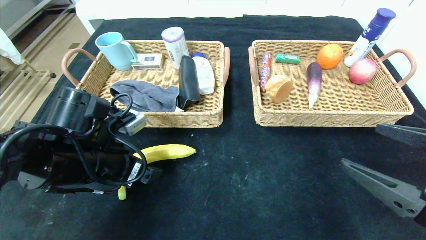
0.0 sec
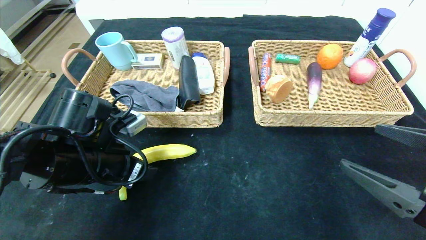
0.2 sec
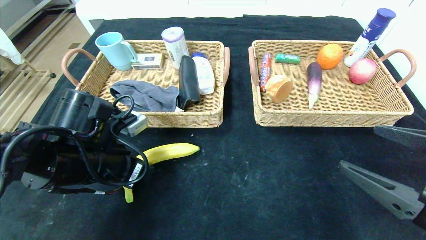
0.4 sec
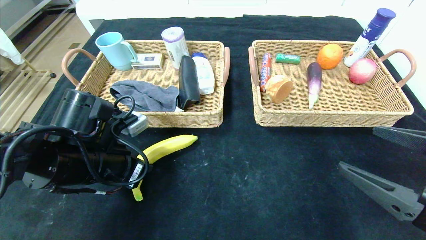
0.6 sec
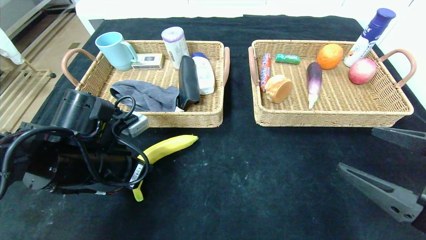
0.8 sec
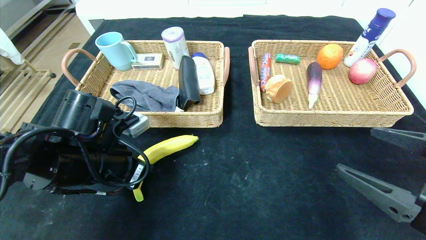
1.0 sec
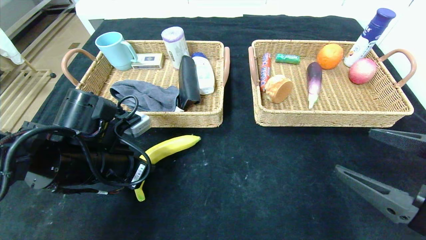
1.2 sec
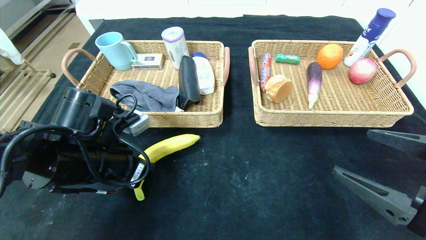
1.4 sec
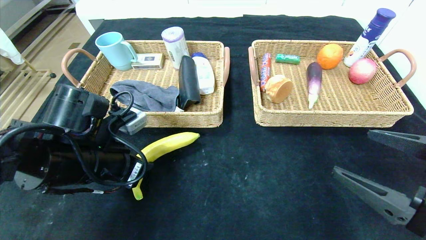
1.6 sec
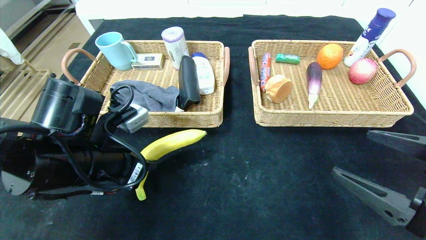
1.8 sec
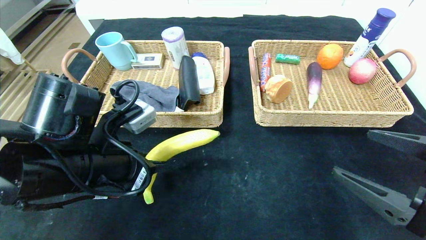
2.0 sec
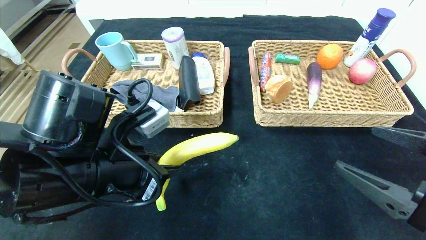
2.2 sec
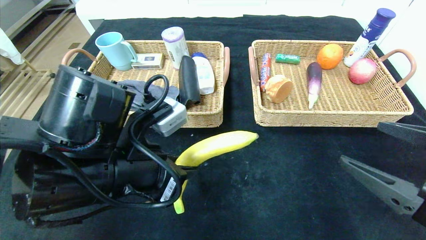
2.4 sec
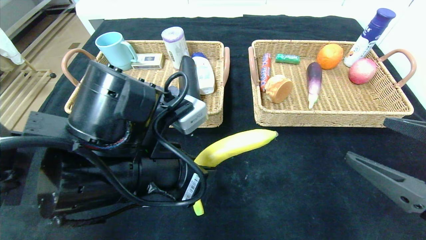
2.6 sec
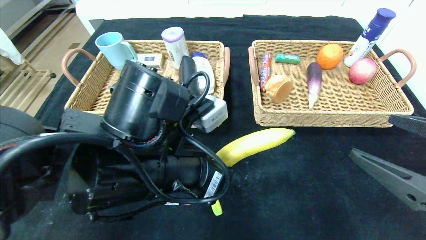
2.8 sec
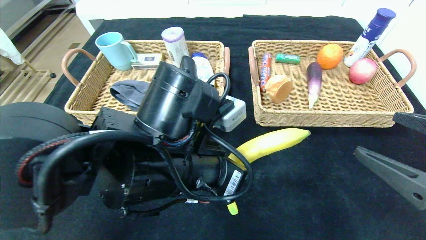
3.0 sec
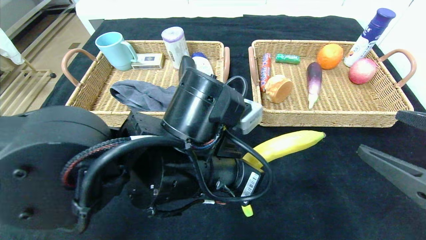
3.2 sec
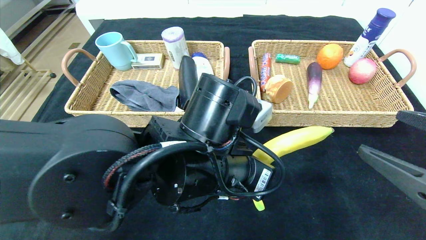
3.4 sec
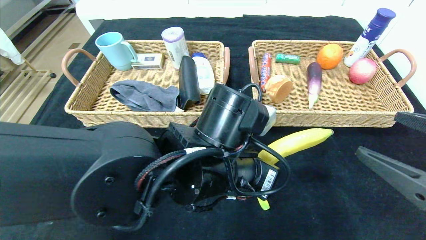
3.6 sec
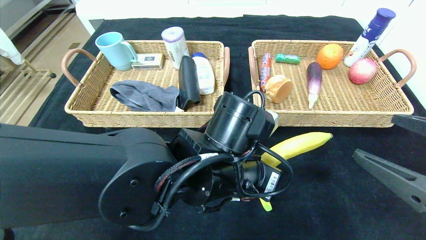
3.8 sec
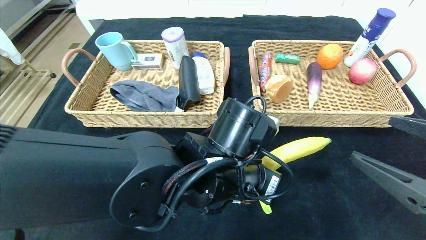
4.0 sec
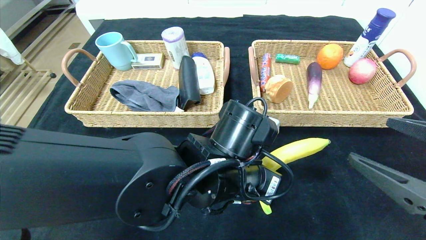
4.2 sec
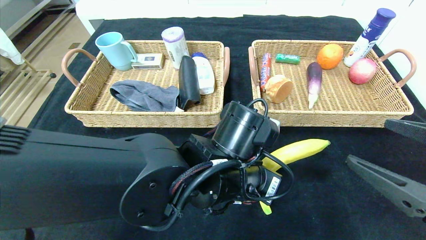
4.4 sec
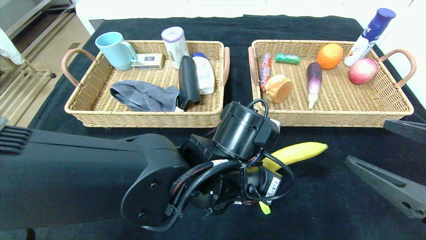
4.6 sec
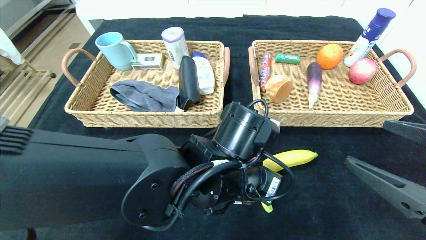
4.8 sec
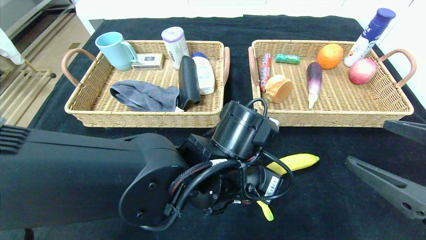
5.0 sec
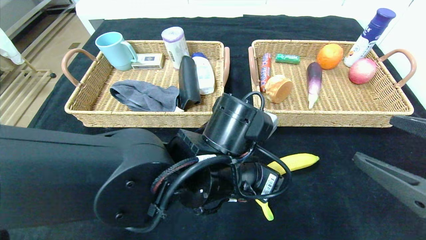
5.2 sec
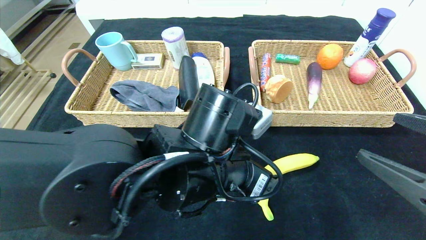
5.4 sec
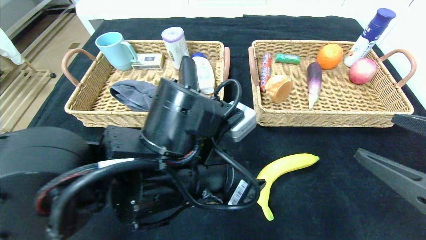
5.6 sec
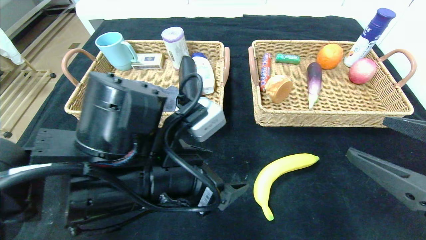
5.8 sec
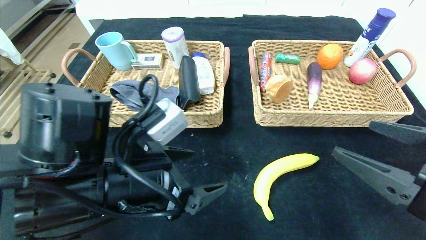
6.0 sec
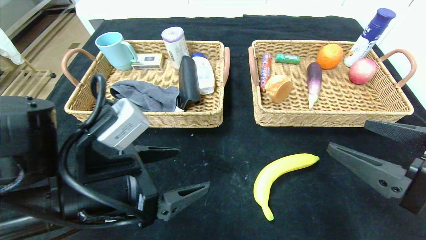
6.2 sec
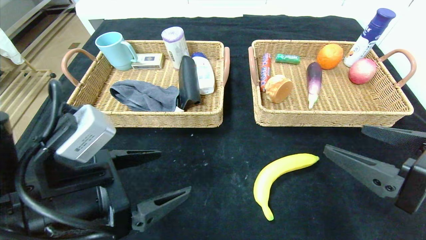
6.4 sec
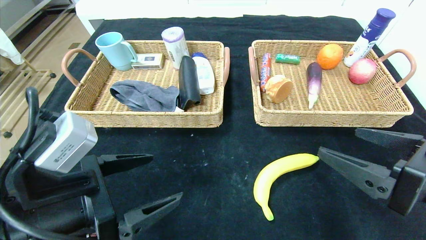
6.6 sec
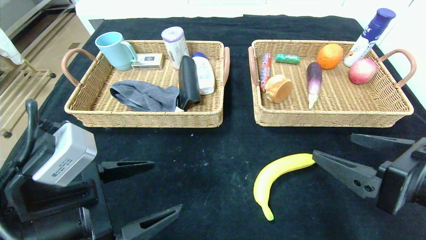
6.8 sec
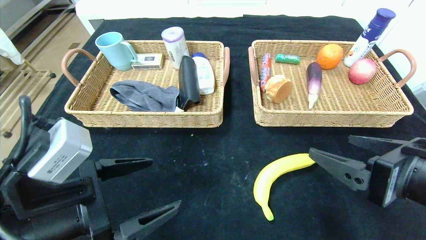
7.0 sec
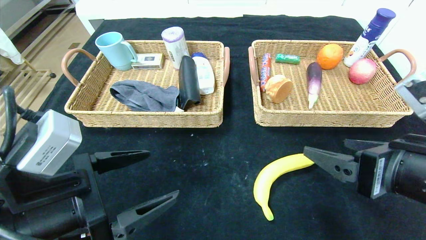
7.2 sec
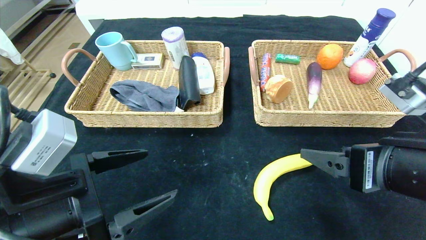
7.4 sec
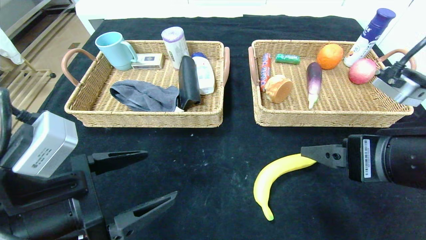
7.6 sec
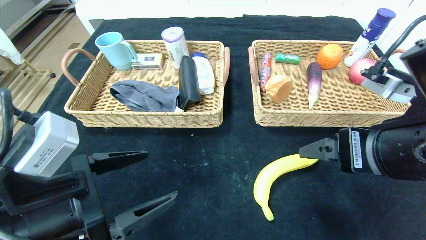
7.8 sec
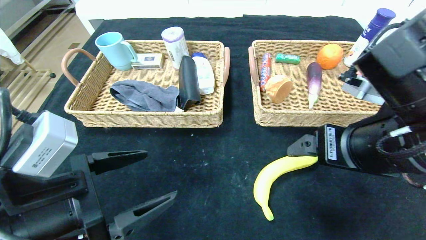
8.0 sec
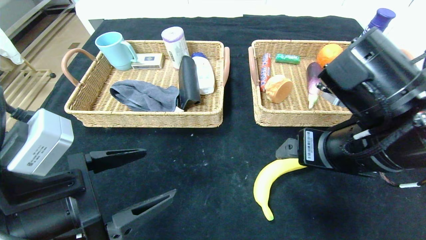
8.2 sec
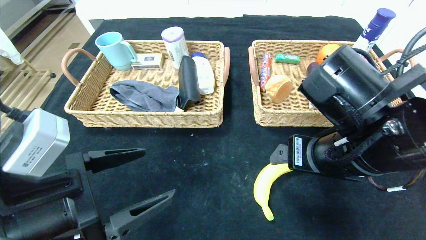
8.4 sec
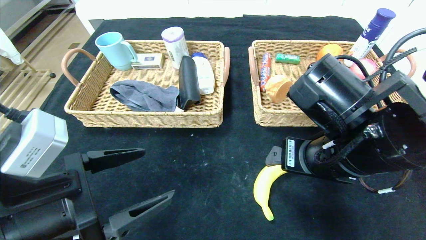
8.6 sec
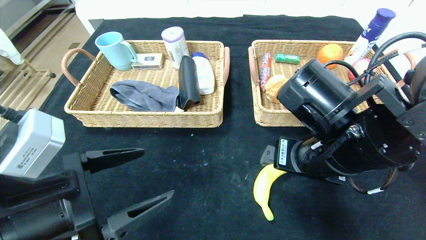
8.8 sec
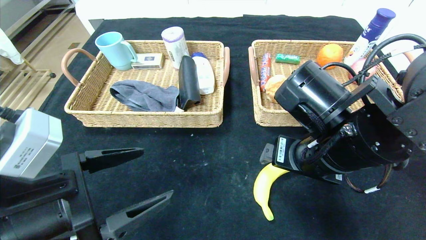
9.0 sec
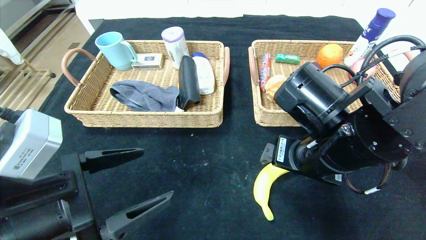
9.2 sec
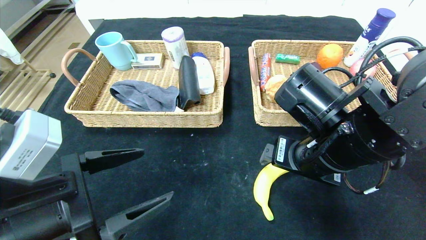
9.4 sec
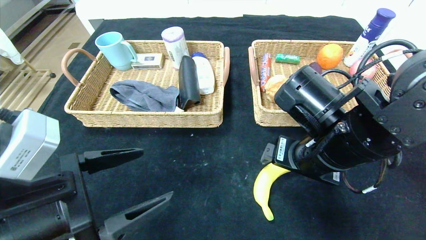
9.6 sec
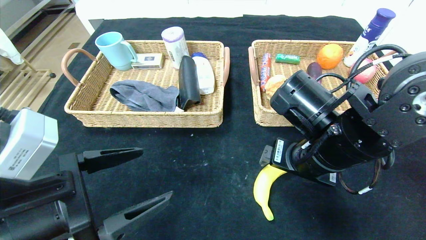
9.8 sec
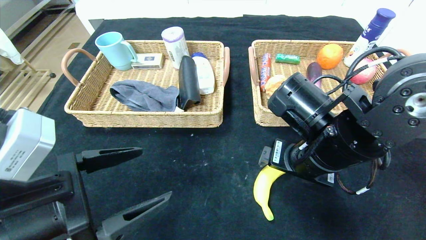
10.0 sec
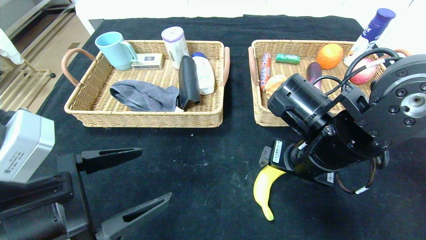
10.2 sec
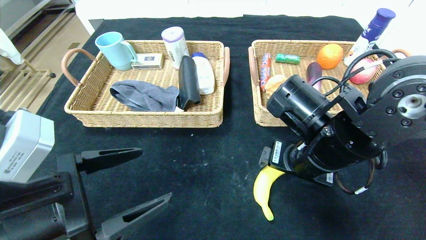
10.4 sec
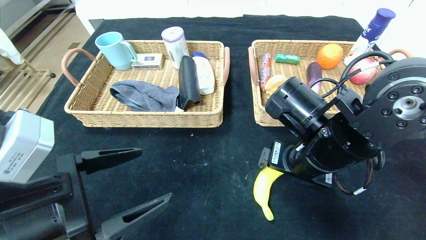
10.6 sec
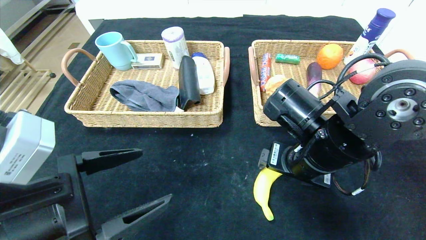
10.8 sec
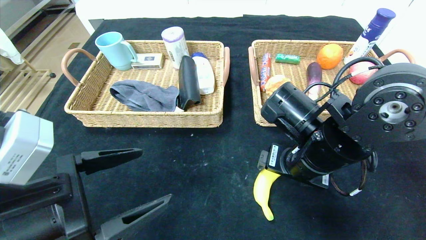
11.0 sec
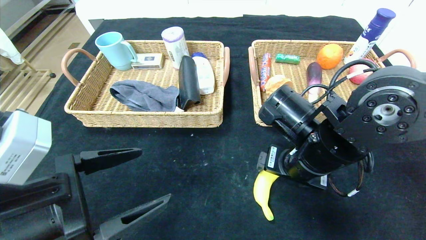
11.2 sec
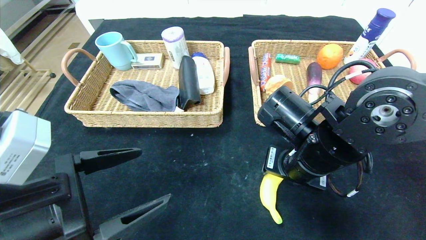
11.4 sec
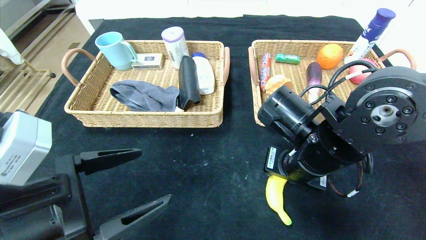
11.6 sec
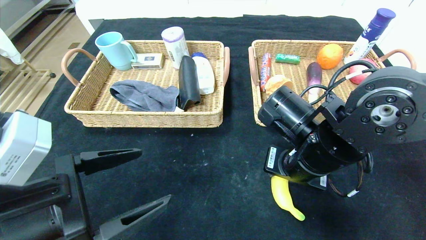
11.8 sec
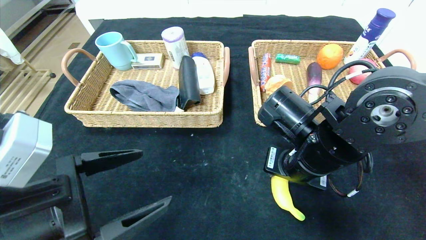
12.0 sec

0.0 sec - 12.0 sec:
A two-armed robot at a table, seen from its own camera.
Step, 0.0 sec - 5.4 sec: Place the banana in the center of the table.
0.0 sec - 1.6 sec: The left gripper closes its fingers.
1.6 sec - 3.0 sec: The left gripper moves to the right, roughly 15 cm.
3.0 sec - 4.4 sec: The left gripper is displaced to the right by approximately 5 cm.
4.4 sec - 6.0 sec: The left gripper shifts approximately 15 cm to the left, and opens up.
6.0 sec - 7.6 sec: The left gripper heads to the left, covering roughly 5 cm. Meanwhile the right gripper moves about 5 cm.
7.6 sec - 9.0 sec: The right gripper shifts about 10 cm to the left and forward.
9.0 sec - 10.4 sec: There are only small adjustments of the grippers.
10.4 sec - 12.0 sec: The right gripper closes.

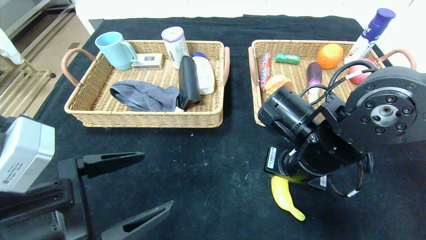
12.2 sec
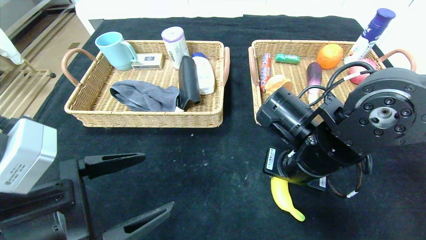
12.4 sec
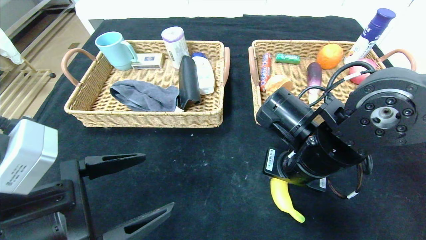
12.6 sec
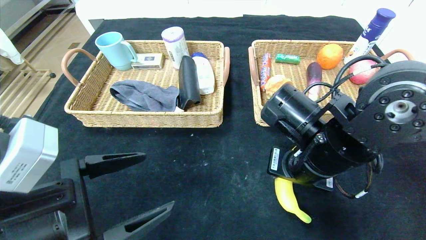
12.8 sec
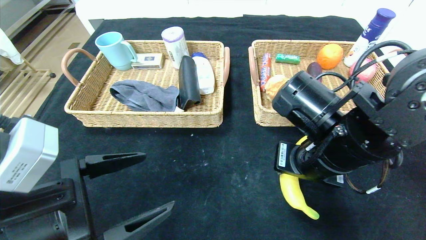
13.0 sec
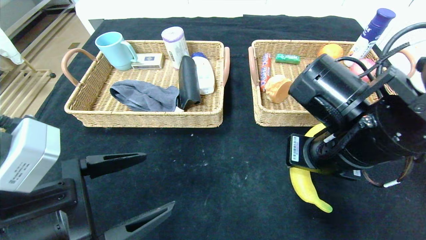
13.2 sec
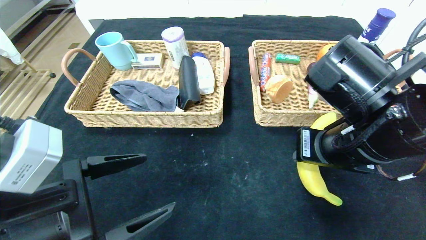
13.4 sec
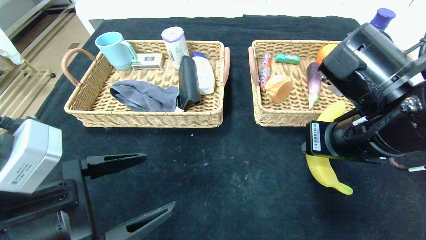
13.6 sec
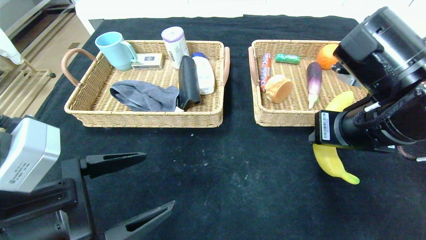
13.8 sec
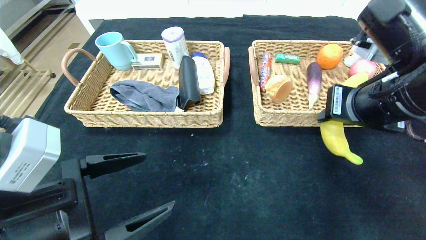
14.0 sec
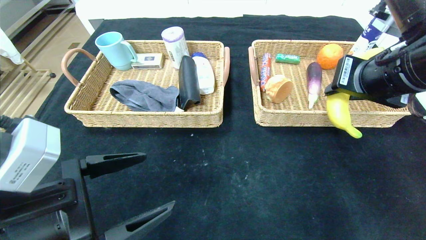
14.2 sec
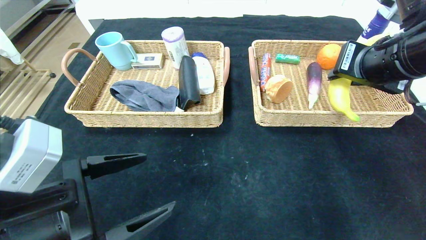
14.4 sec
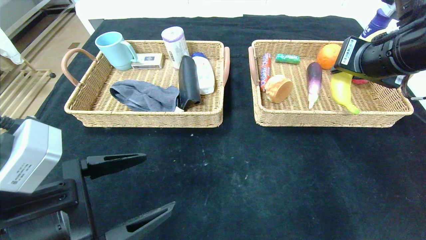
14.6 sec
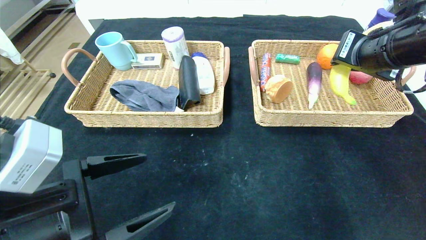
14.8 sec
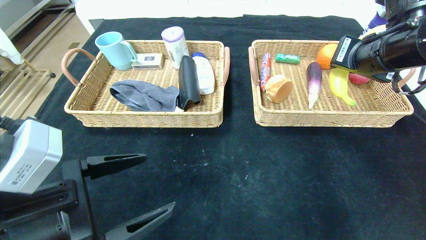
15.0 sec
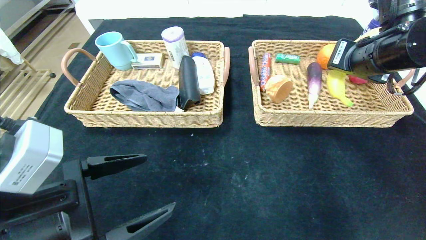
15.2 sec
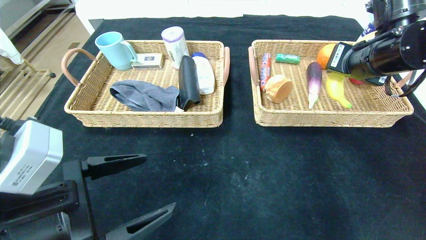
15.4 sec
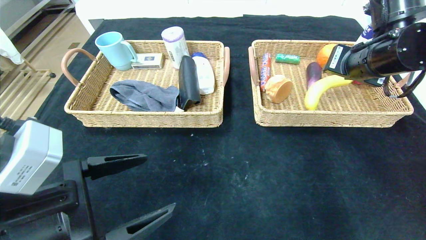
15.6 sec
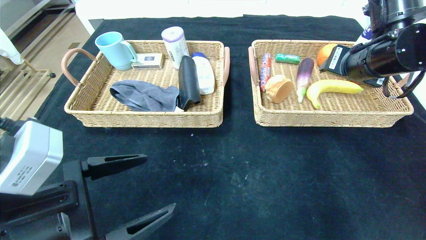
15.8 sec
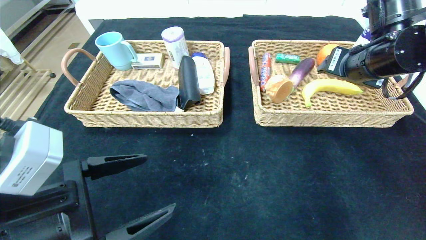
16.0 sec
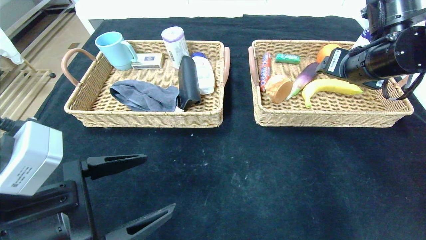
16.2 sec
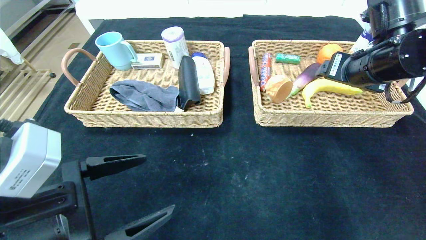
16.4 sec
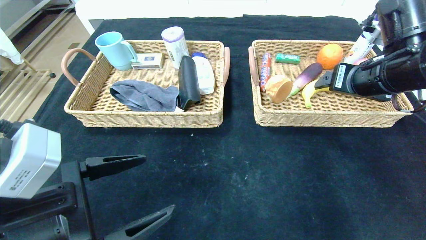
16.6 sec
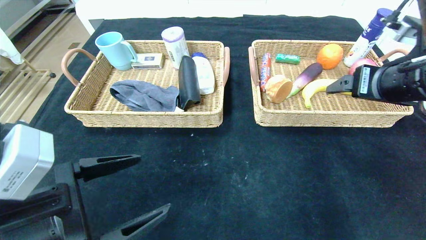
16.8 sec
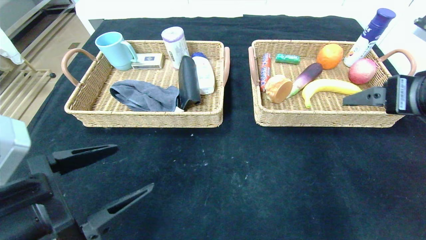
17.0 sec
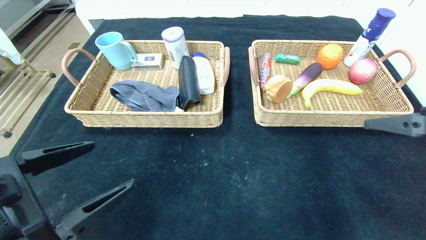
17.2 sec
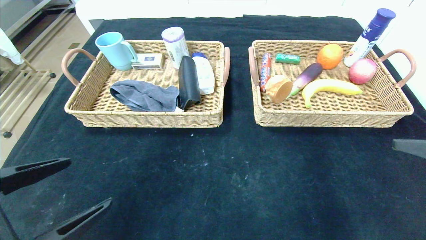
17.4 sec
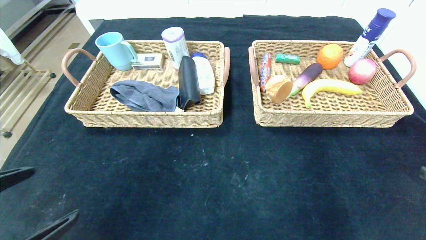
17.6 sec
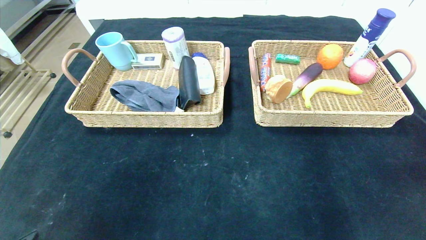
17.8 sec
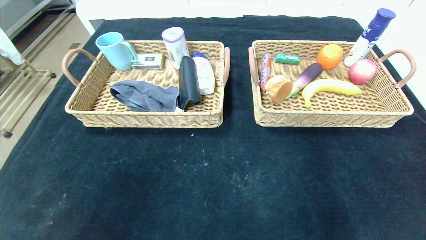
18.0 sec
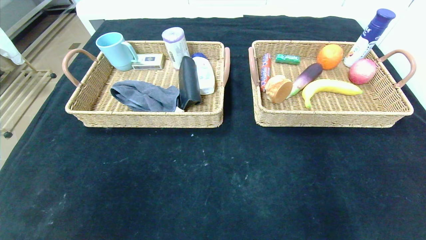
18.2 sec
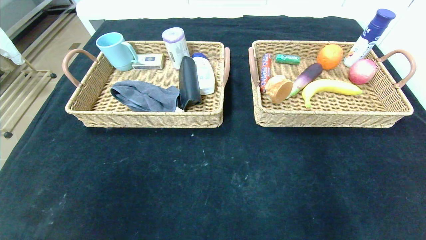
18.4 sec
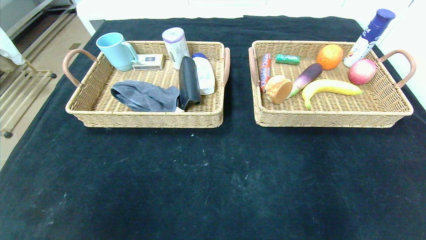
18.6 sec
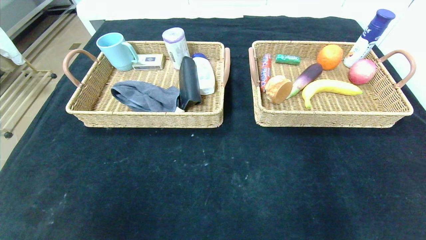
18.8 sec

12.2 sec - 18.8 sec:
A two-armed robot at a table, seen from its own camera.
Step, 12.2 sec - 16.0 sec: Grasp the banana and put it in the right basket.
12.2 sec - 13.8 sec: The right gripper heads upward and to the right, covering roughly 10 cm.
13.8 sec - 15.4 sec: The right gripper goes approximately 10 cm forward and to the right.
15.4 sec - 17.2 sec: The right gripper goes about 15 cm backward and to the right, and opens its fingers.
17.2 sec - 18.8 sec: Both grippers travel together backward, some 25 cm.
